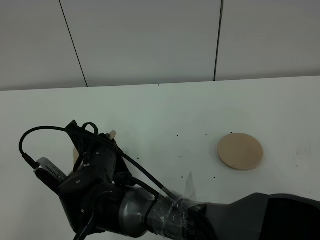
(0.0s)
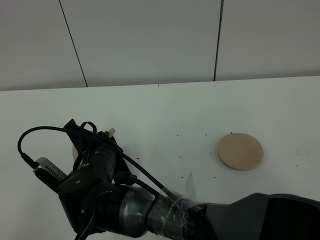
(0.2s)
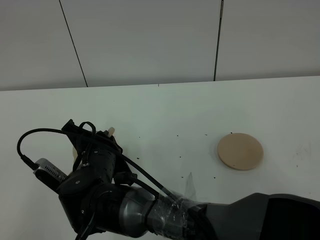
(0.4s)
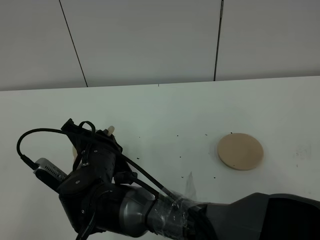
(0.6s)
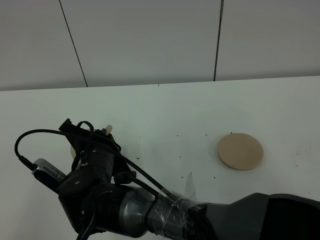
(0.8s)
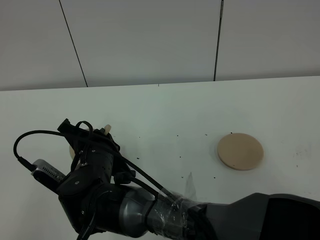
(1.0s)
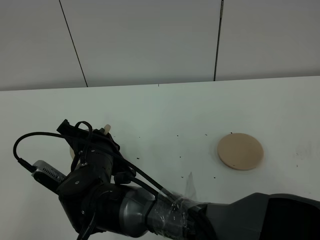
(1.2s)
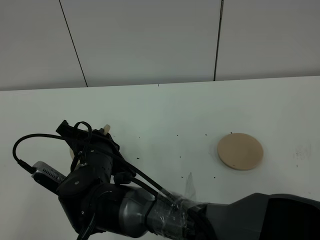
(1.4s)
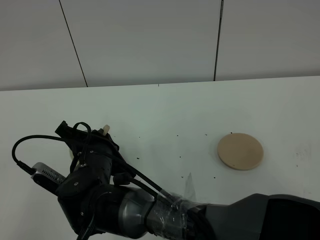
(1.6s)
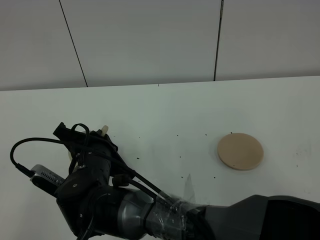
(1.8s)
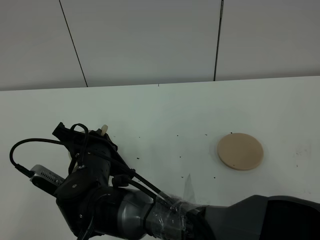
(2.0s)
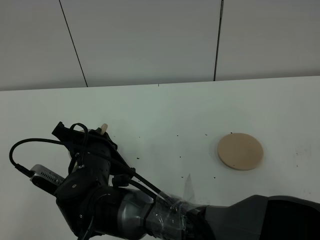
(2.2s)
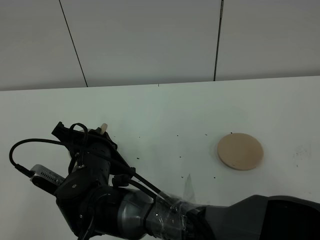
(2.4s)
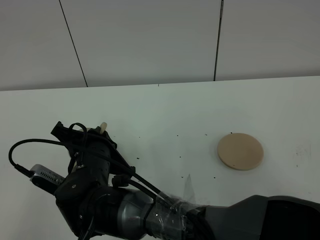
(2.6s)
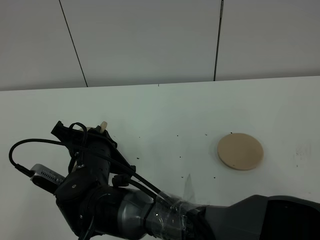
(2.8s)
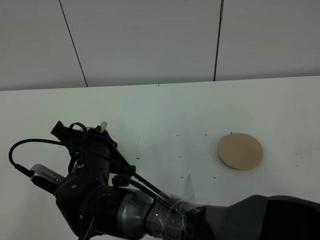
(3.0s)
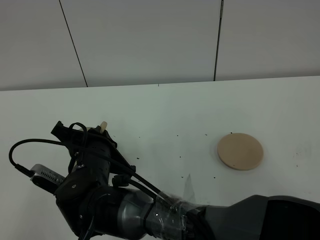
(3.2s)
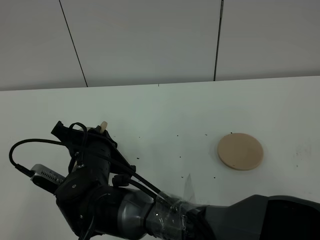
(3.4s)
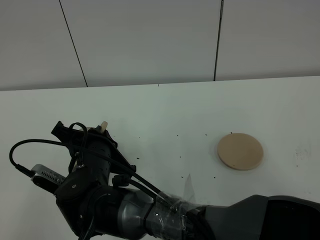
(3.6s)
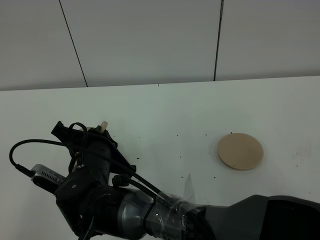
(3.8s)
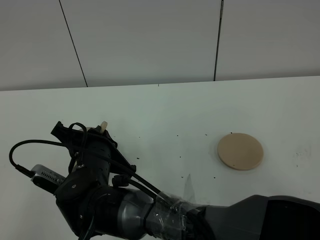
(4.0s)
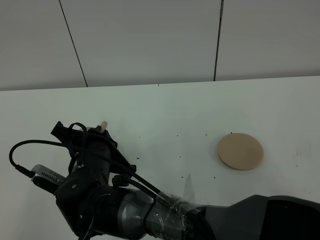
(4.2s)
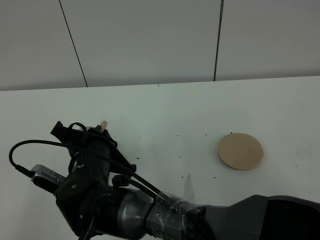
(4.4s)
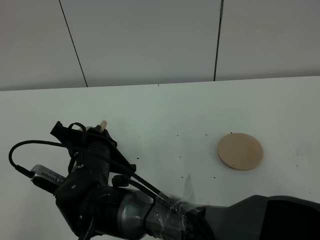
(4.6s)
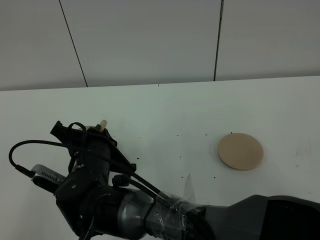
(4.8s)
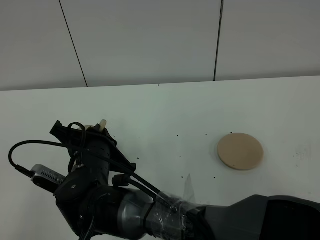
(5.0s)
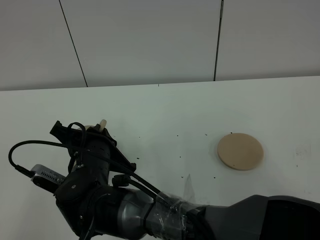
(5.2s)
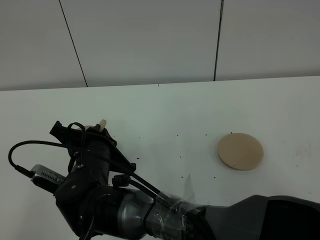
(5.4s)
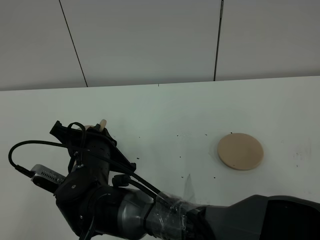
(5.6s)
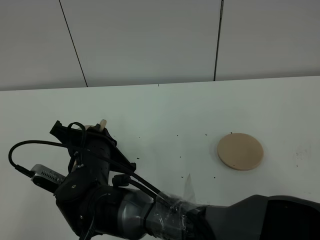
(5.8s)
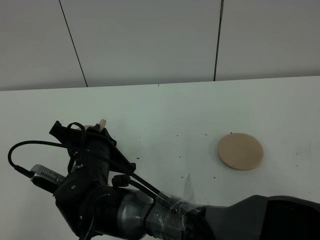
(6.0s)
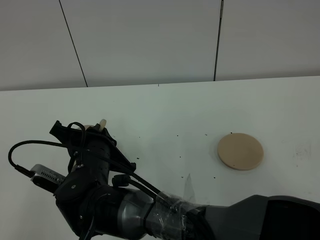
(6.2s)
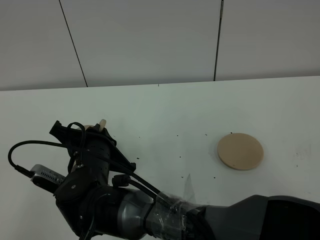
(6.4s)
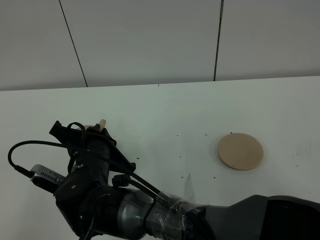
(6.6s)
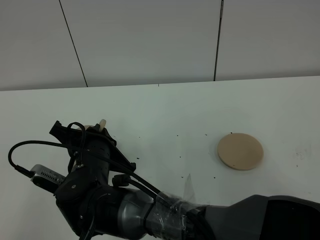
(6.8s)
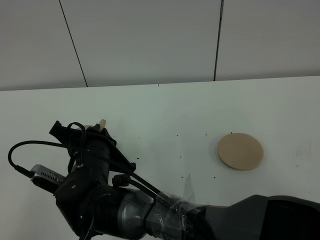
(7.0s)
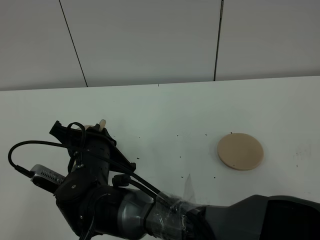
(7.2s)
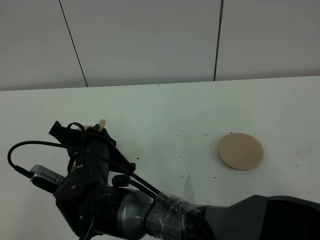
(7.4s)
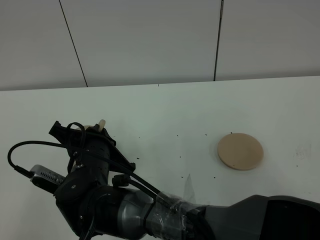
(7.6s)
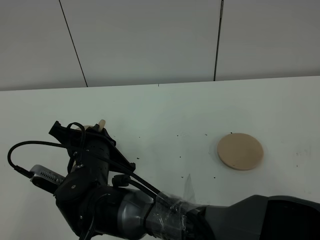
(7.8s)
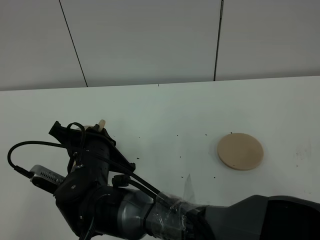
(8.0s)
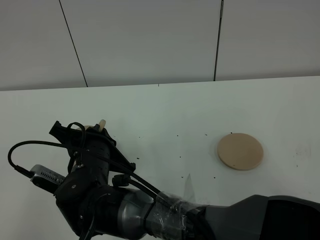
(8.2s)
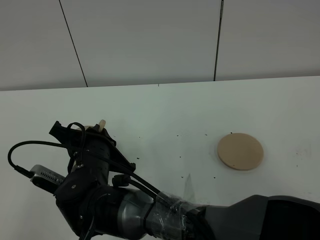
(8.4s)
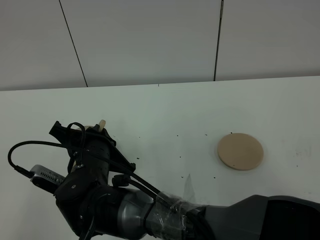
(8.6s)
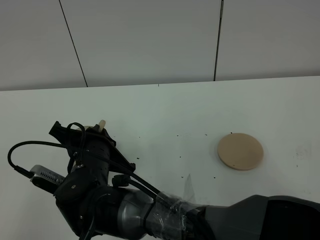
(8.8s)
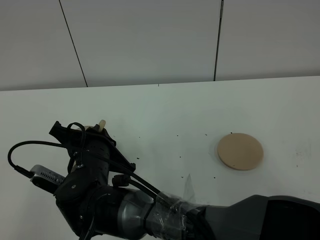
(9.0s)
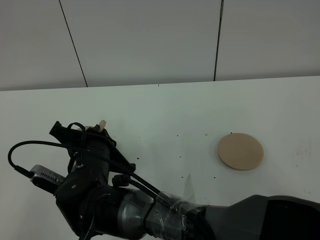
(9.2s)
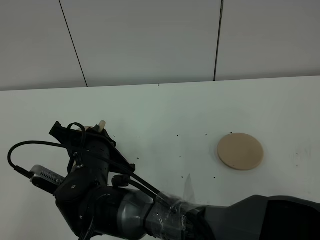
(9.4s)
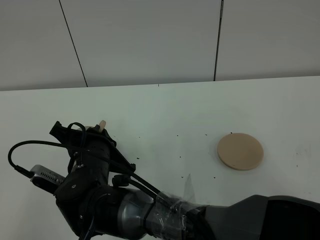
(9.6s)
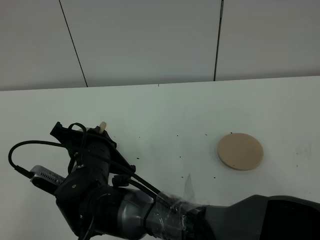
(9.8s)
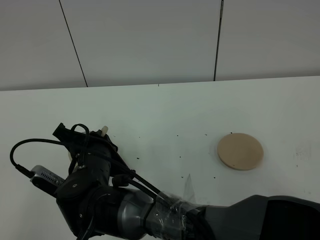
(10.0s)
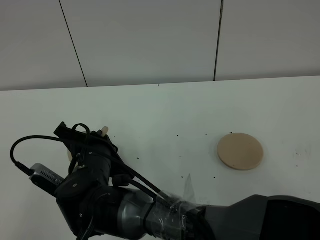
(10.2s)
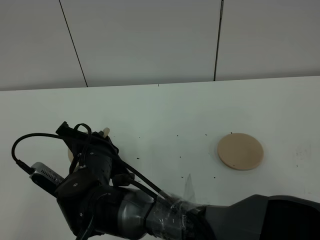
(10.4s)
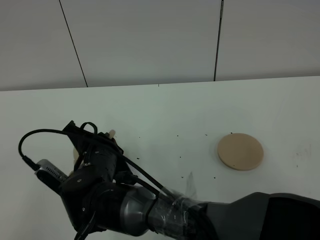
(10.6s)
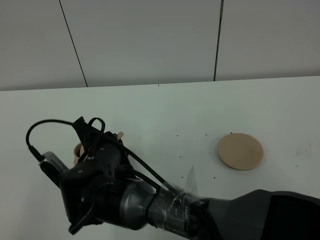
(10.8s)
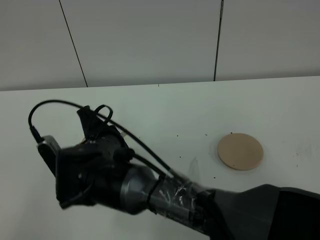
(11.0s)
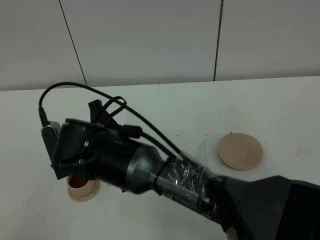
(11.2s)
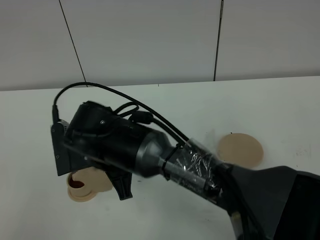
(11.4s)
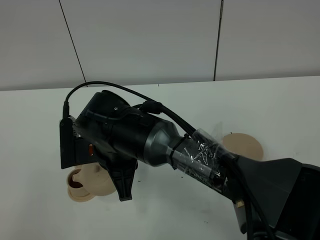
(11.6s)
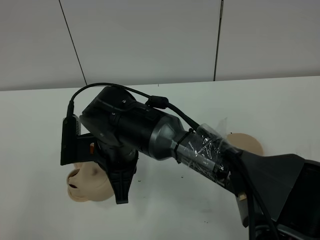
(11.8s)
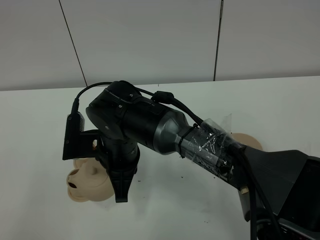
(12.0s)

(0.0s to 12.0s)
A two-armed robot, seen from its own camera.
Task of the whole recording: grasp the brown teapot and pour the tea into the two brown teacups one by one, put the brown teapot back in its original place.
Step, 0.0s - 10.2s: Pour tea into the teacup with the right gripper.
0.0s - 1.6s: There are only small adjustments of the grippers.
1.6s - 4.4s: The two grippers keep their place.
4.4s - 9.0s: The two grippers keep their place.
9.0s - 10.4s: The grippers make only small movements.
10.4s - 12.0s: The right gripper ends up approximately 5 cm from where it was.

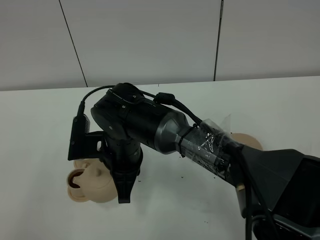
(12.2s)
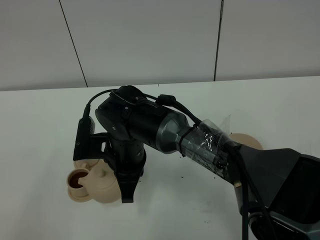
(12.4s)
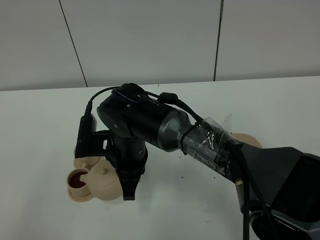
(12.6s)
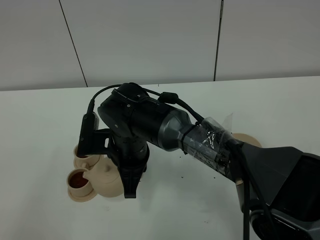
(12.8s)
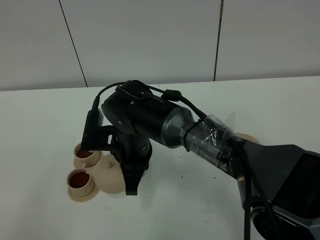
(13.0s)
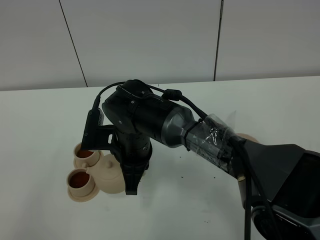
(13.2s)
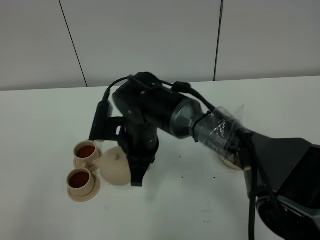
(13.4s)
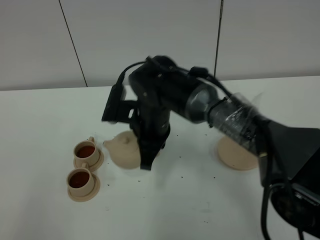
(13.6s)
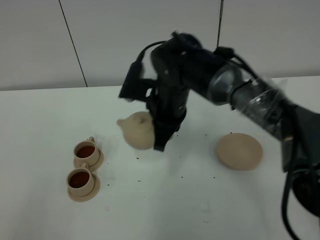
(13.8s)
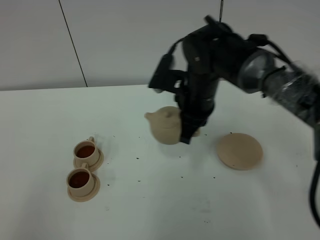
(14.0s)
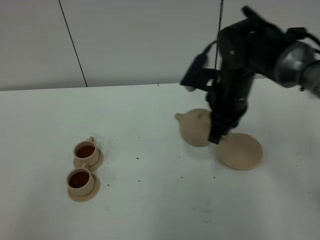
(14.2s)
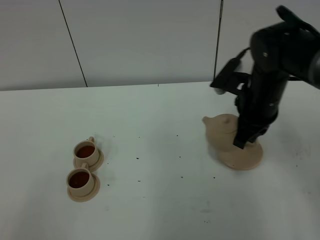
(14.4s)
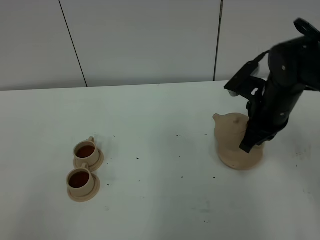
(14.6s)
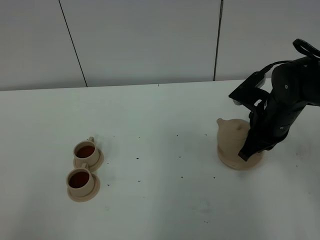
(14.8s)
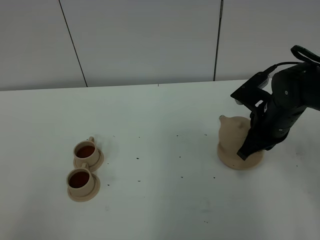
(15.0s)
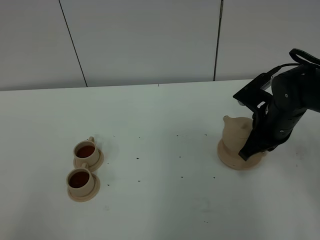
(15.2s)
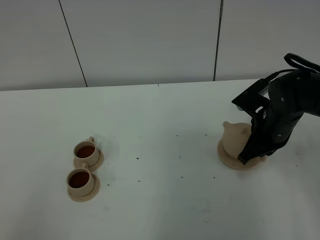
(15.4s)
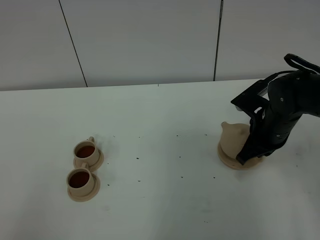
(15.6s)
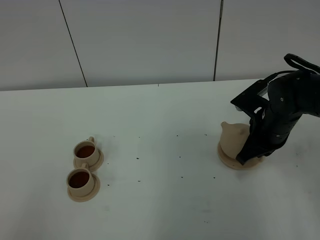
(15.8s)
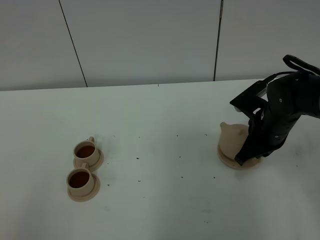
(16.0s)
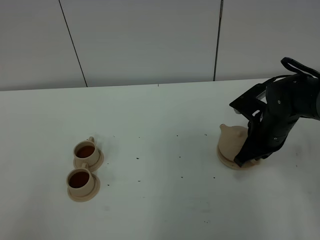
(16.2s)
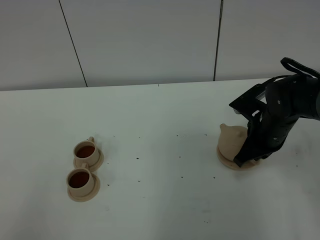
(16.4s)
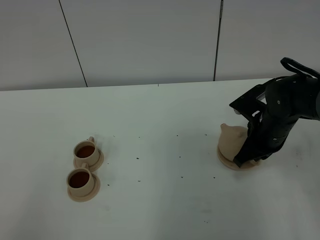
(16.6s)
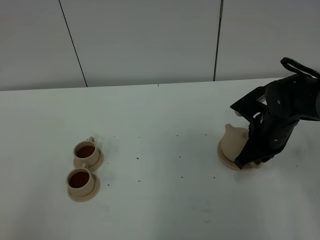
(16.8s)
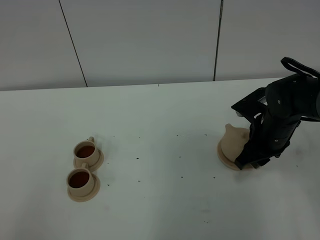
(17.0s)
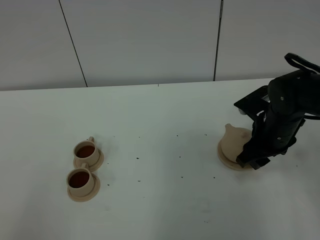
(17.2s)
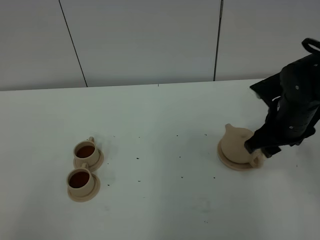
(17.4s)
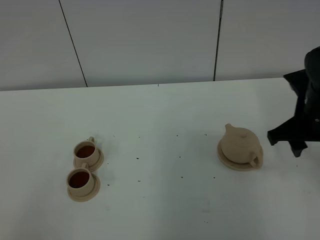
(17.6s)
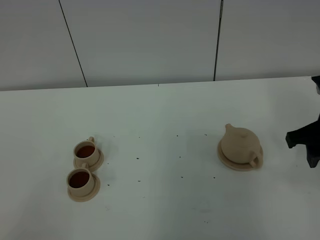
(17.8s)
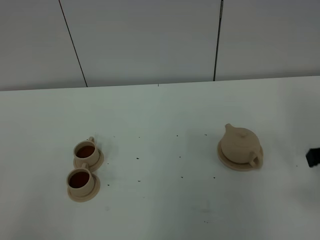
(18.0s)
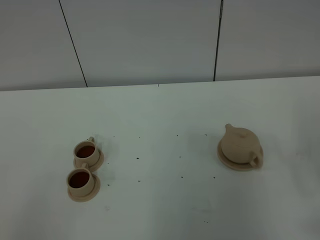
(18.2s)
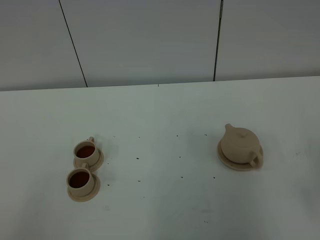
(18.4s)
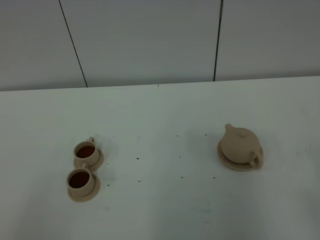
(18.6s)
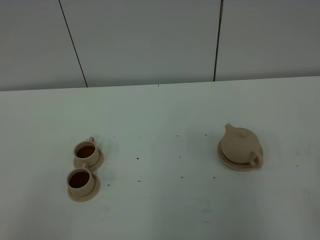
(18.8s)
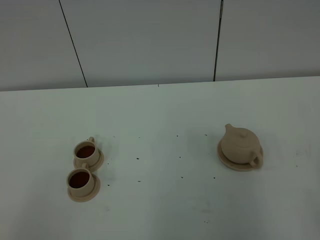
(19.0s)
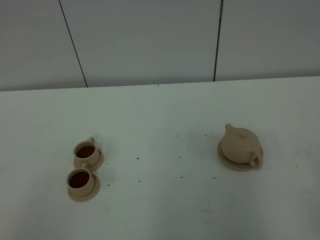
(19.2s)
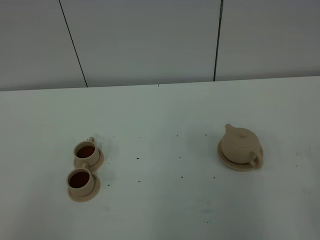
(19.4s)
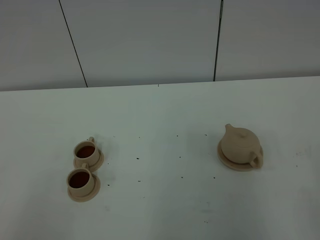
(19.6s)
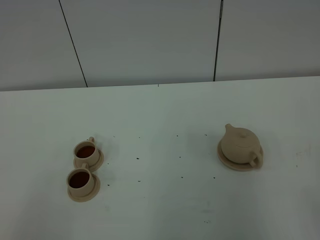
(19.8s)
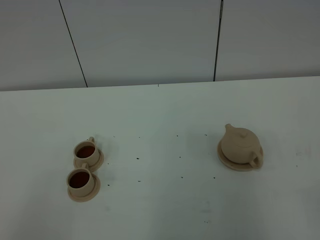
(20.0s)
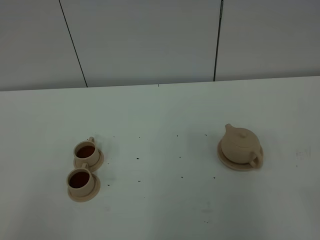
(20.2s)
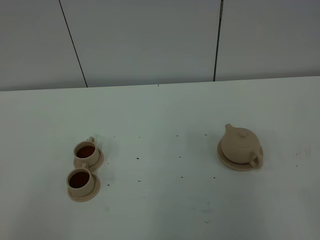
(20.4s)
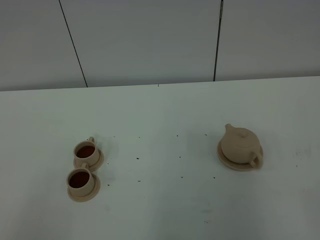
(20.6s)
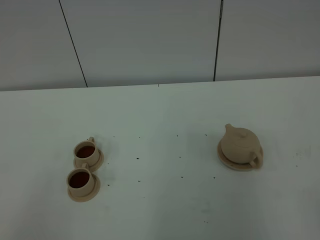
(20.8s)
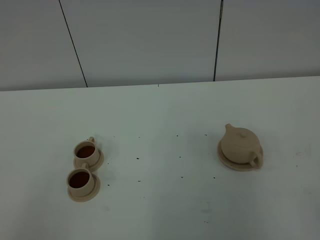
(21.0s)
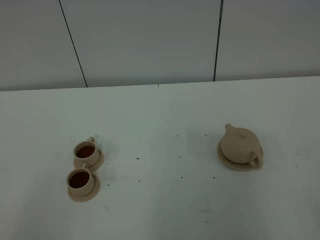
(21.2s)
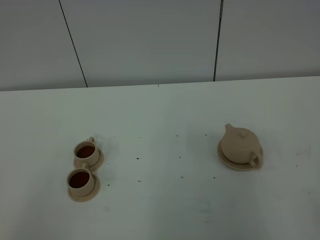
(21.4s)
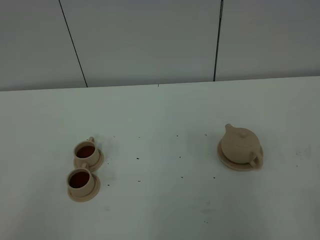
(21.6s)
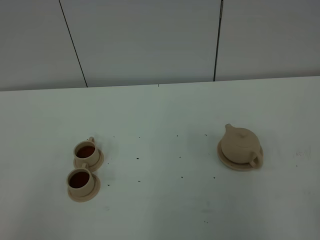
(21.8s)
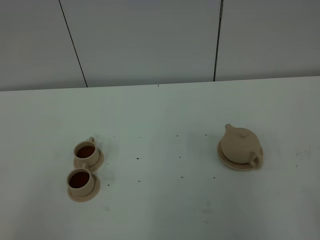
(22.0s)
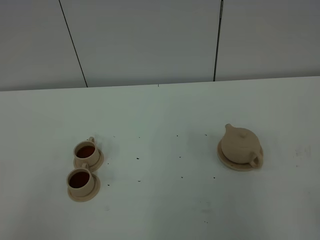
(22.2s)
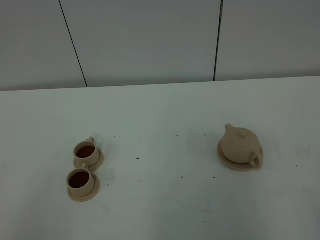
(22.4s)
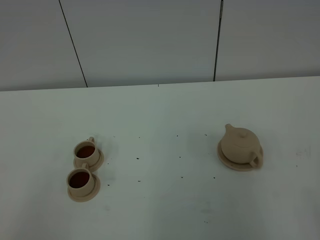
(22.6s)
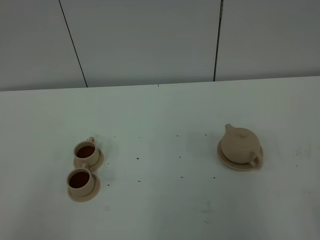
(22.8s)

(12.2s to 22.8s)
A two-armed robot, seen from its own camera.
Task of the whole recording: grasp the brown teapot and pour the tea into the two brown teacups one by one, put the brown teapot back in its original place.
12.2s - 13.8s: The right gripper heads to the right and forward, covering about 10 cm.
13.8s - 15.2s: The right gripper travels to the right by approximately 20 cm.
15.2s - 16.8s: The grippers make only small movements.
16.8s - 18.2s: The right gripper shifts about 25 cm backward, upward and to the right, and opens.
21.2s - 22.8s: Both grippers stay put.
